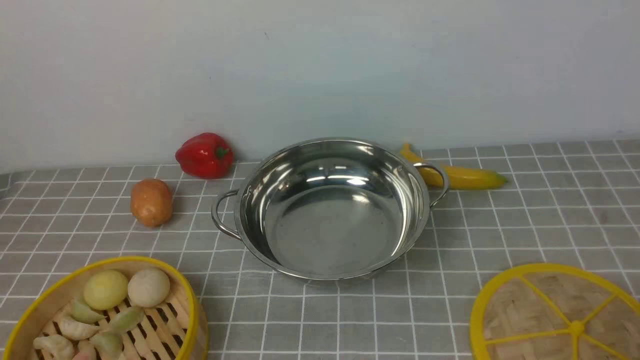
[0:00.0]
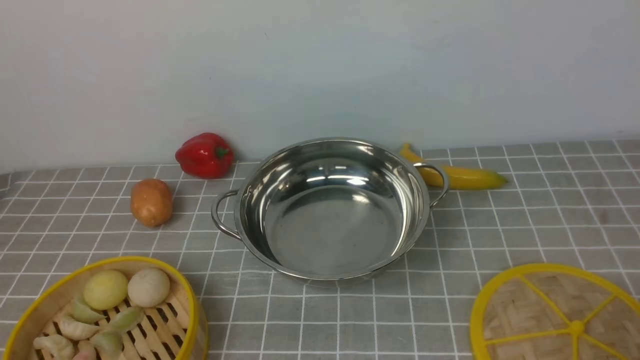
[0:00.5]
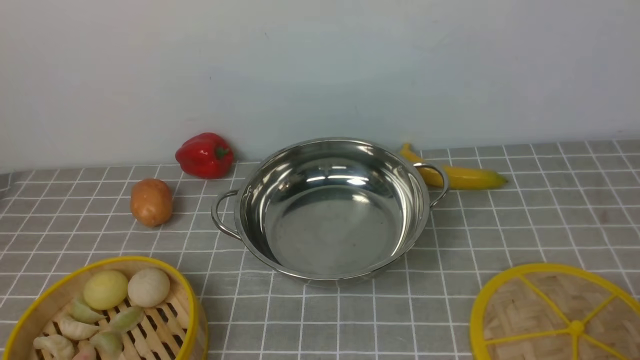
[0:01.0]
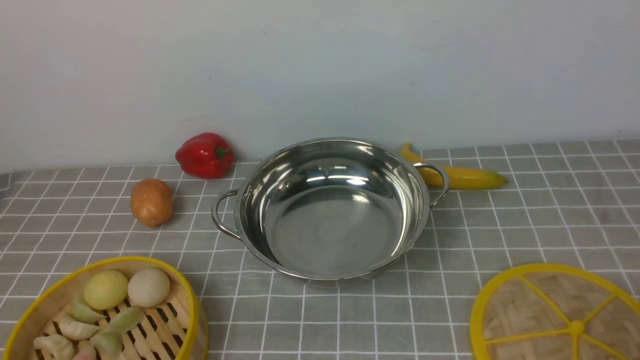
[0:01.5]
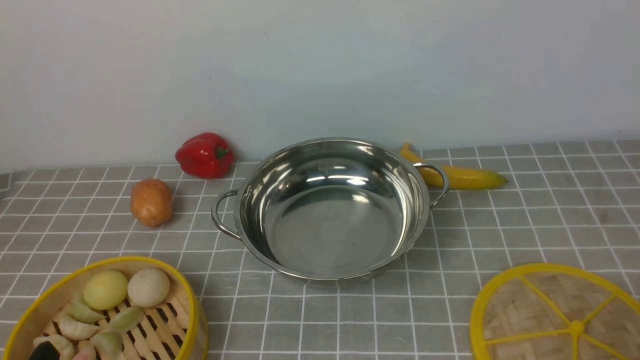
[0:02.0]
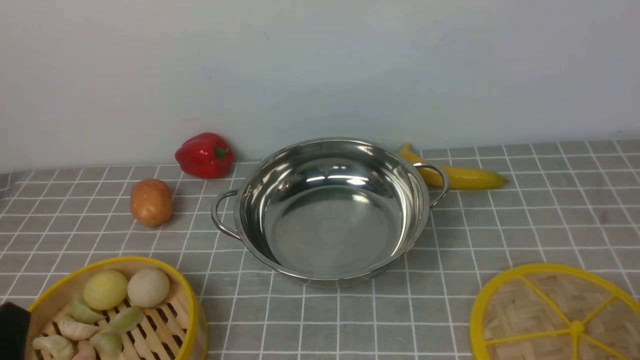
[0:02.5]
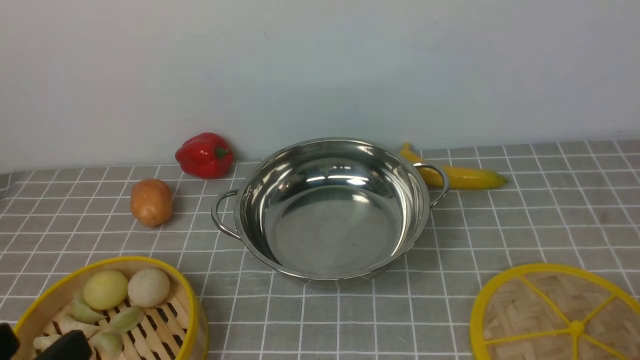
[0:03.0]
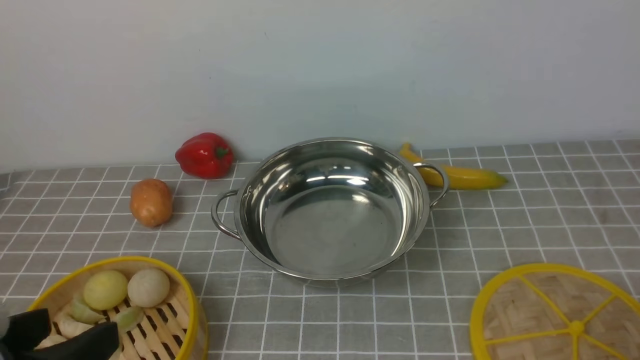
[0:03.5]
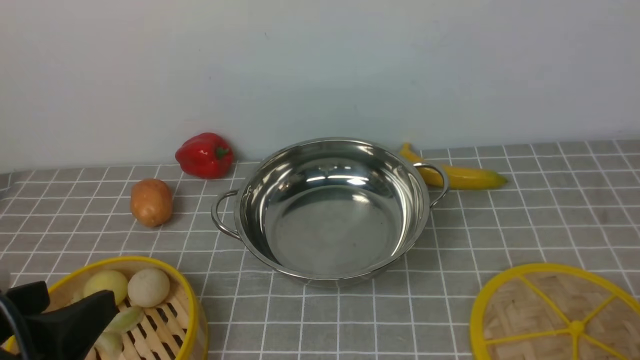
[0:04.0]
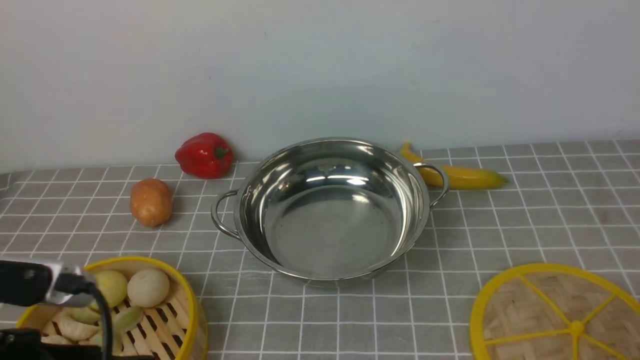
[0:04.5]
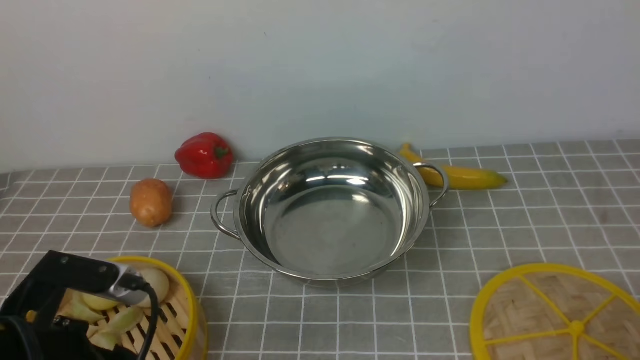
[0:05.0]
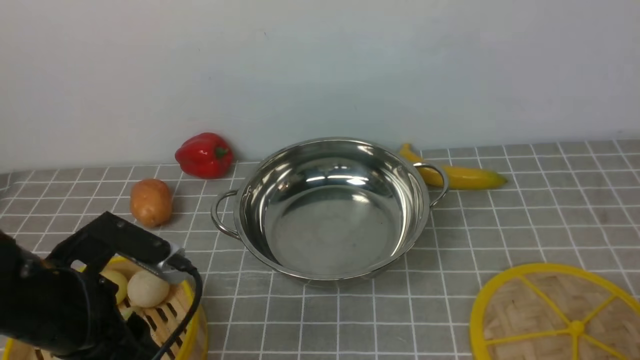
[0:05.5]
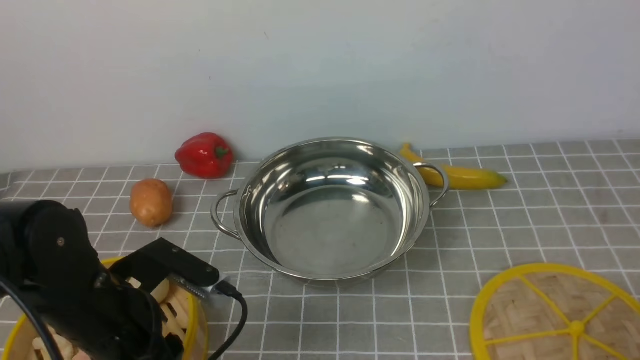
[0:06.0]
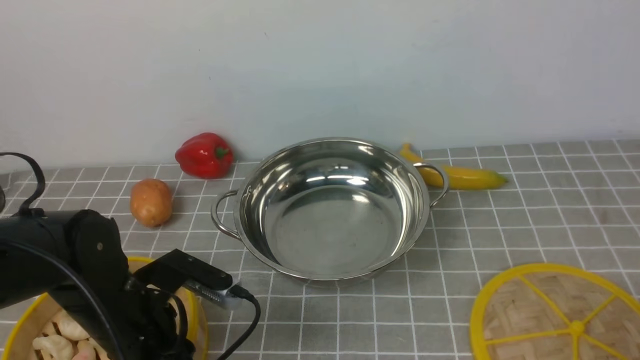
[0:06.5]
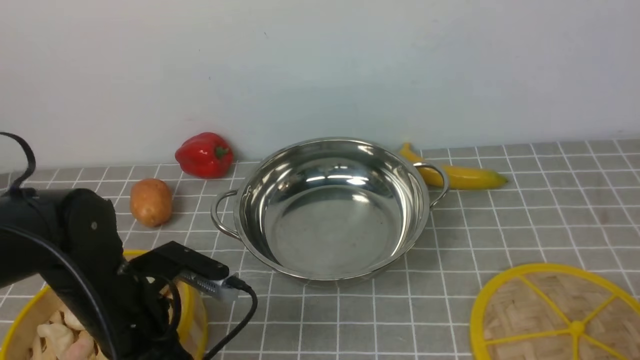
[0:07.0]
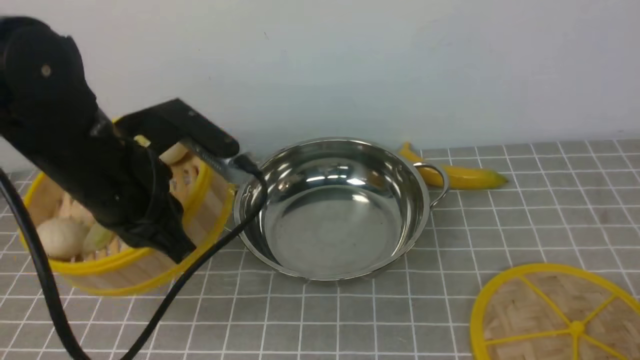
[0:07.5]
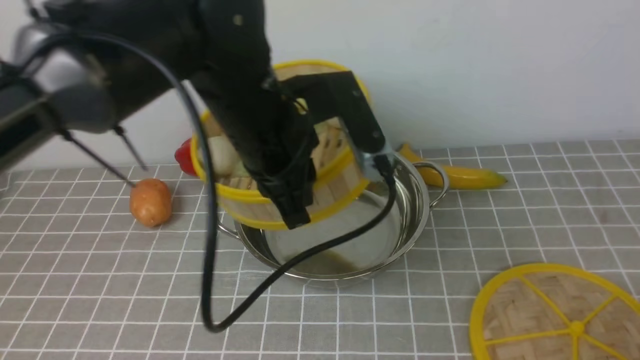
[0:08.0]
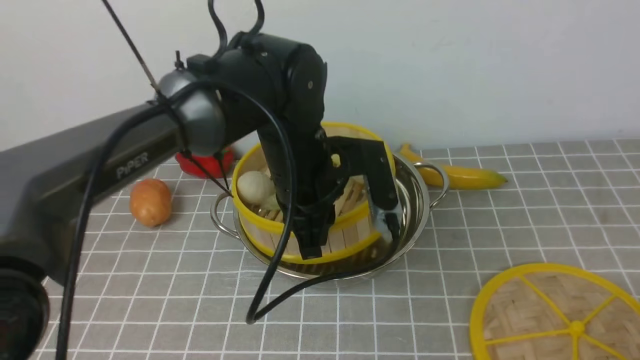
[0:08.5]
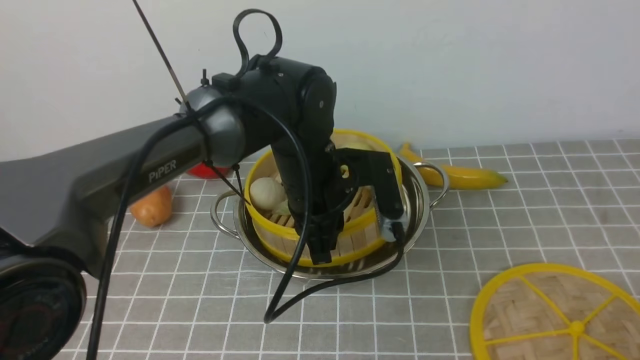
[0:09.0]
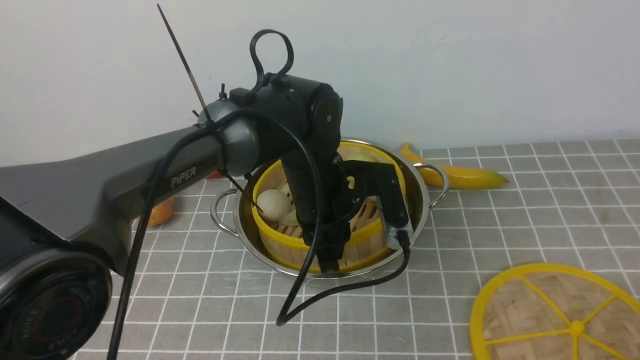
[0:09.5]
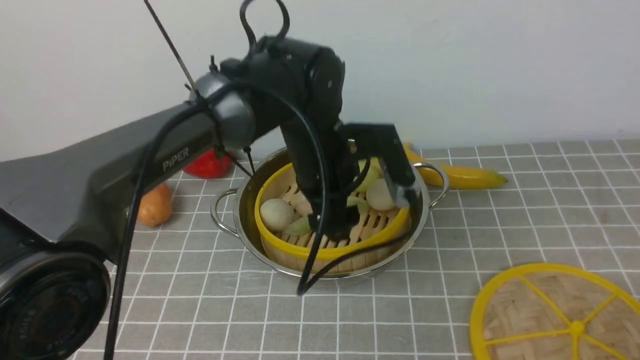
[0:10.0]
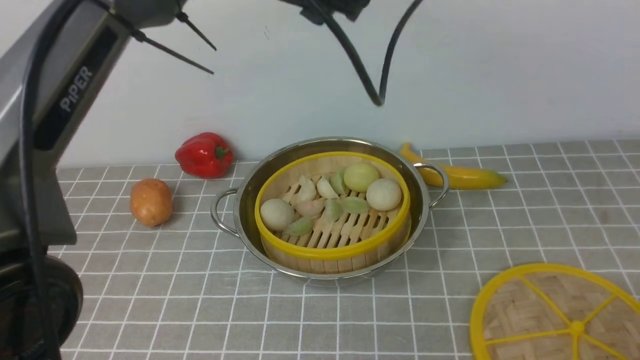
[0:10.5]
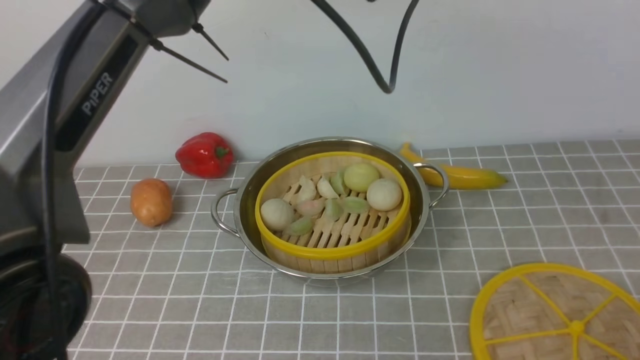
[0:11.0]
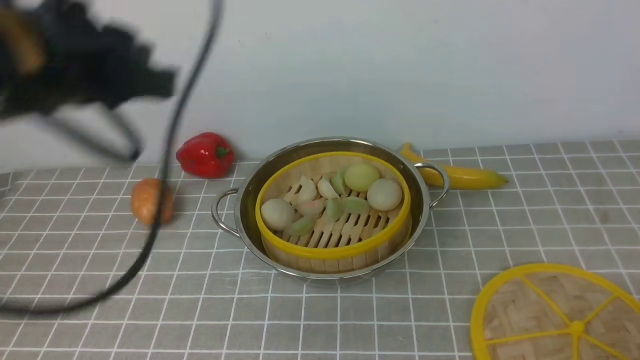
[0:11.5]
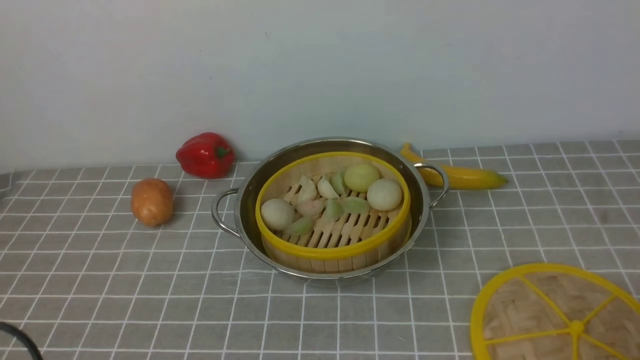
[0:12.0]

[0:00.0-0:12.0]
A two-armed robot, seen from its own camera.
Task of the whole recording: place the steamer in the pot on the grey tablecloth, and put the lid on the steamer.
Step, 0:00.0 to 0:07.0: use the left arm to lift the steamer closest to it.
Step, 0:07.5 to 0:10.0: use the left arm to put the steamer into the iron steamer pot in the middle.
0:02.0 to 0:04.0: The left gripper is displaced upward by roughly 10 cm.
0:04.0 to 0:06.0: The left gripper goes approximately 15 cm forward and downward.
0:06.0 to 0:08.0: The left gripper heads to the right, upward and forward, covering some 20 cm, and closes.
0:08.0 to 0:10.0: The left gripper heads forward and downward, covering roughly 10 cm, and opens up.
0:10.0 to 0:12.0: The left gripper travels backward and to the left by about 40 cm, and closes.

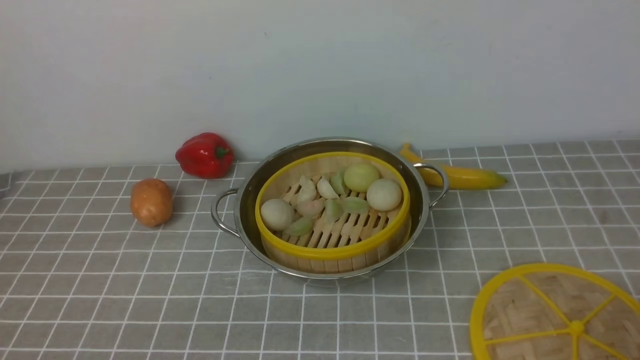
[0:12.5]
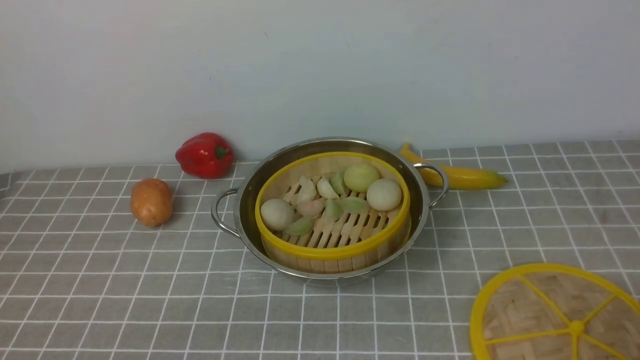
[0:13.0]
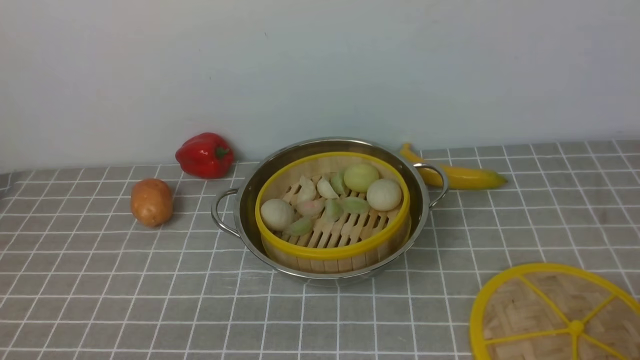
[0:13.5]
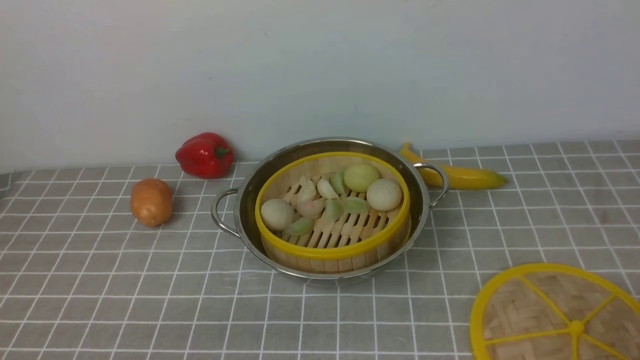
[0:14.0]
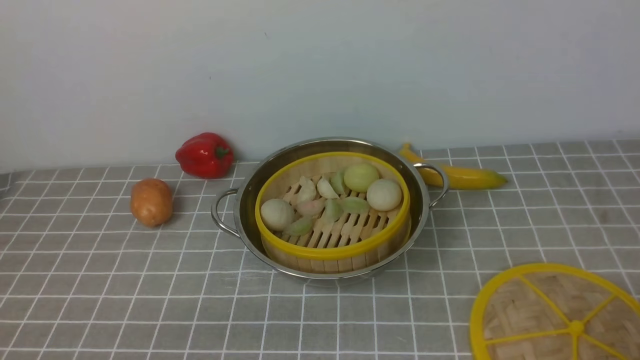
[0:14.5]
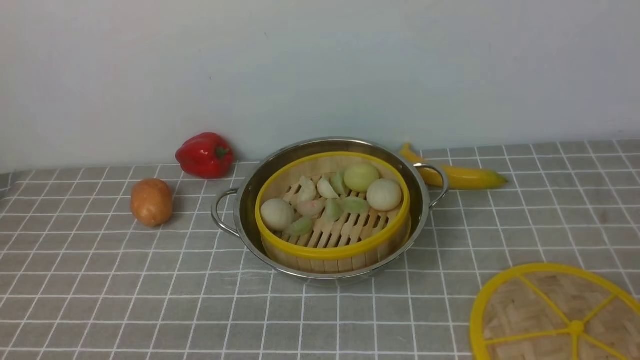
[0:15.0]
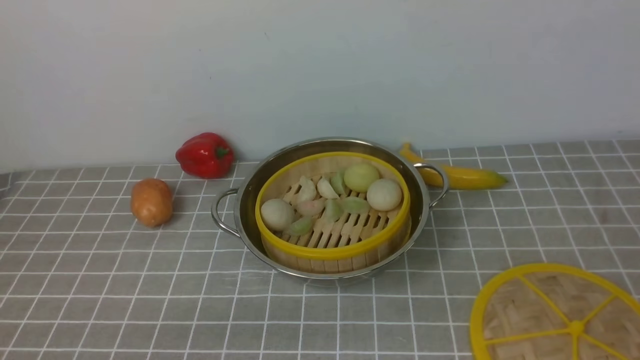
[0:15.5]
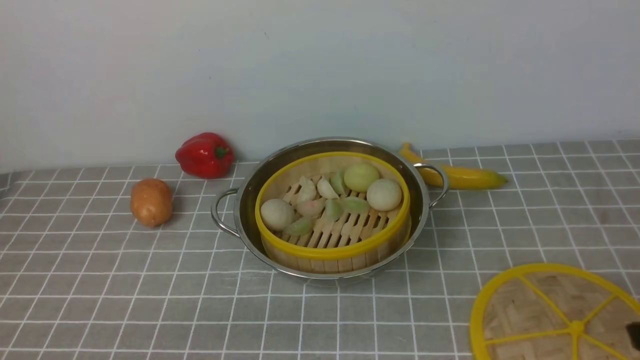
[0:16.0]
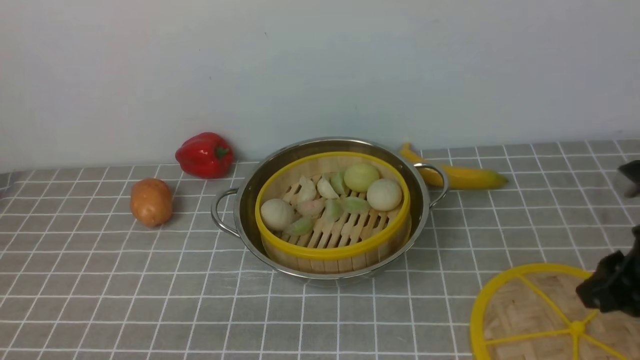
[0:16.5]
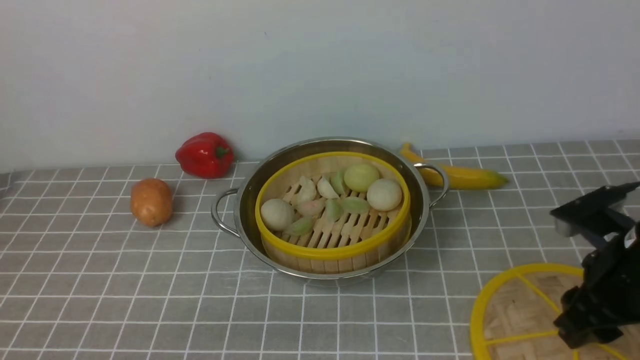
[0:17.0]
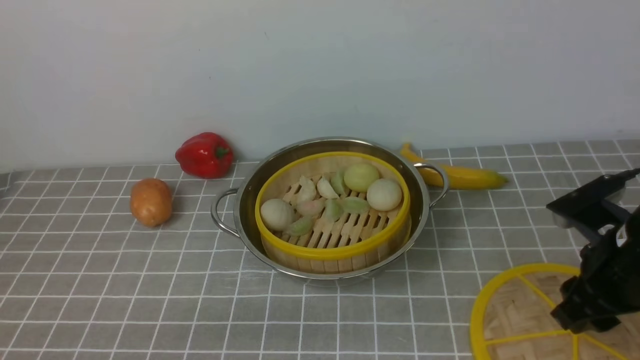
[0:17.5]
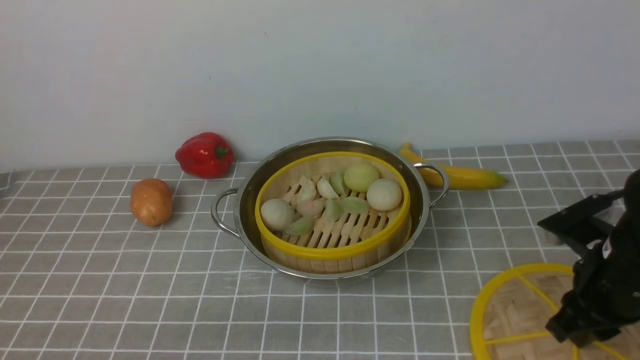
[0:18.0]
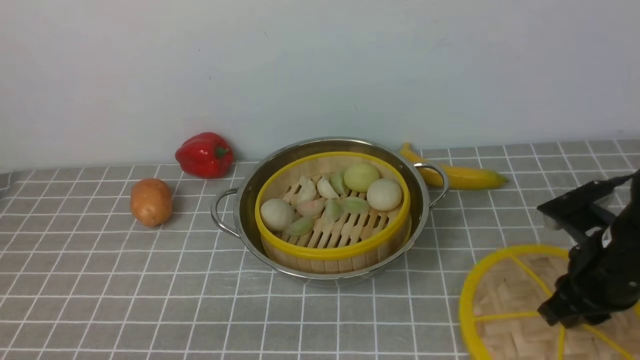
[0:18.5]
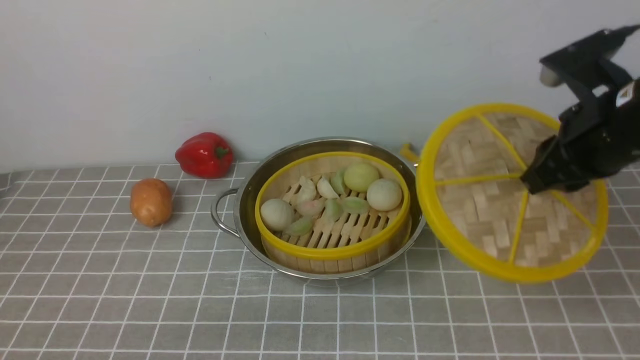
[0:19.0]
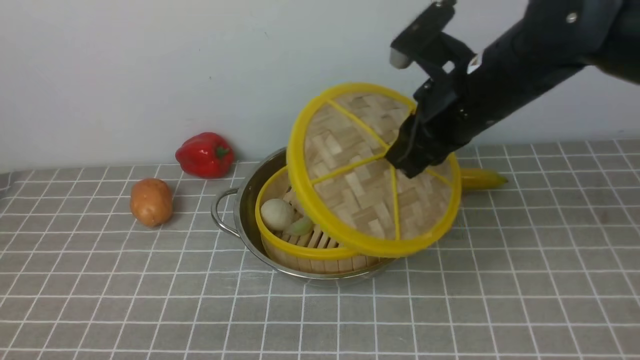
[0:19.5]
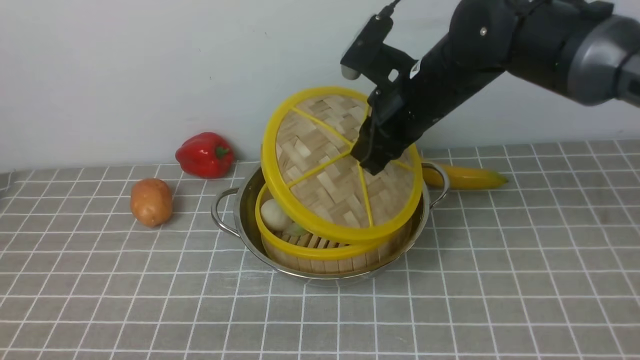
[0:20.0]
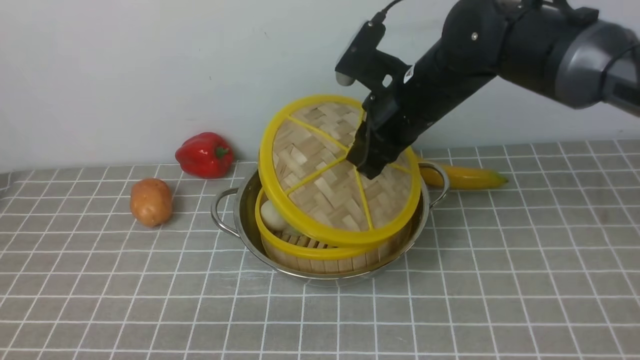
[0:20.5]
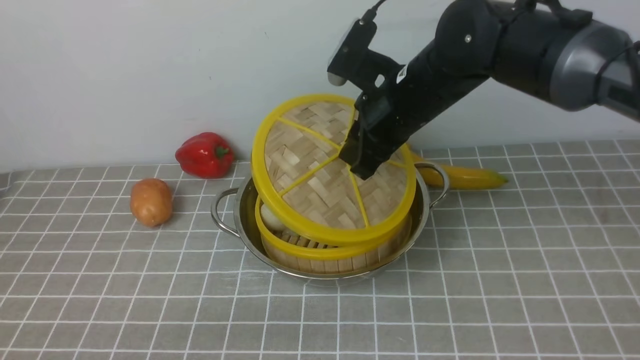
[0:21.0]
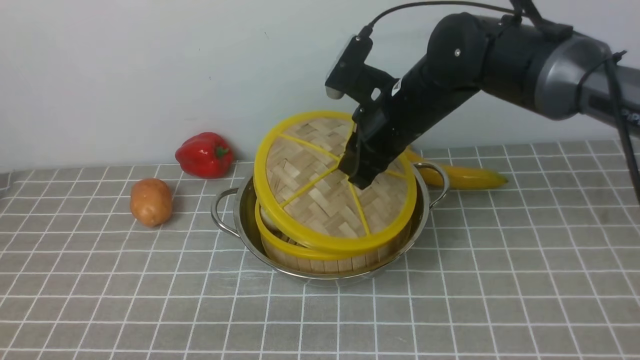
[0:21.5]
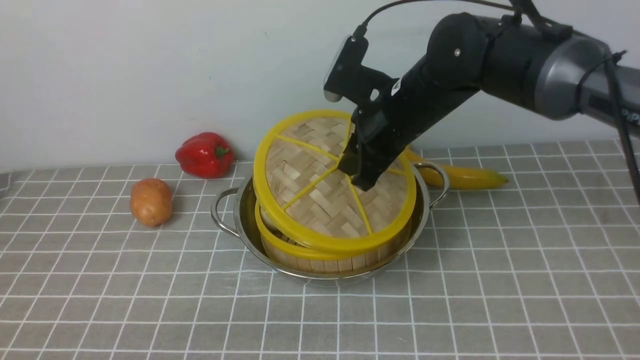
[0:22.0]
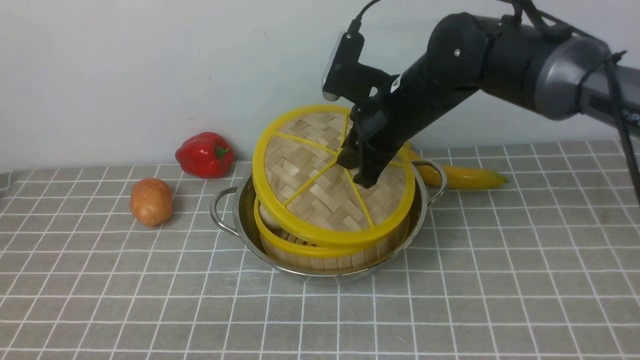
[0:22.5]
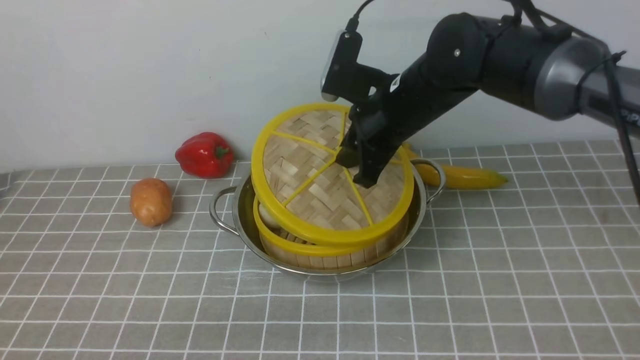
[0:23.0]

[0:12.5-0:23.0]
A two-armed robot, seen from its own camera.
Task of the whole recording: place the steamer in the pot on the grey tablecloth, and put the lid on the steamer.
Step, 0:12.5 to 0:18.5: use the right arm to lift the lid of the steamer.
0:14.5 to 0:16.5: The right gripper goes about 15 cm forward and upward.
0:16.5 to 0:19.0: The right gripper goes roughly 10 cm forward, to the left and upward, and closes its fingers.
0:19.0 to 0:21.0: The right gripper moves to the left and forward, about 15 cm.
0:21.0 to 0:23.0: There are only small adjustments of the grippers.
